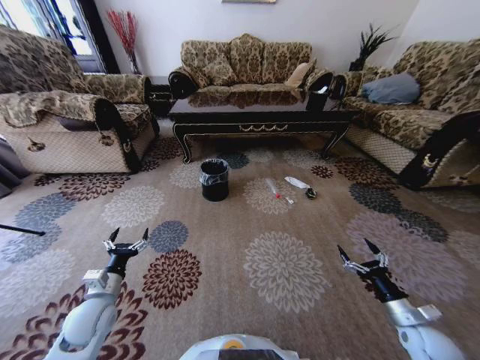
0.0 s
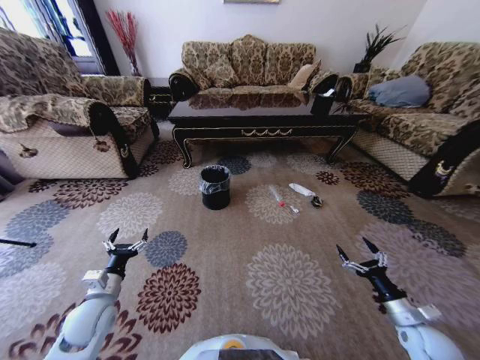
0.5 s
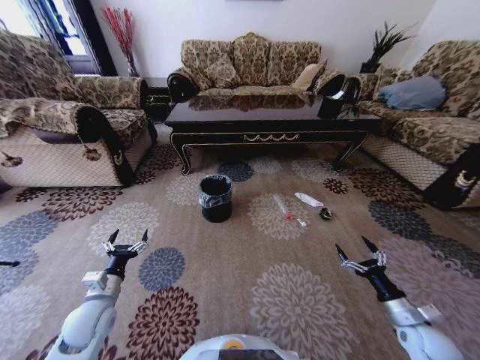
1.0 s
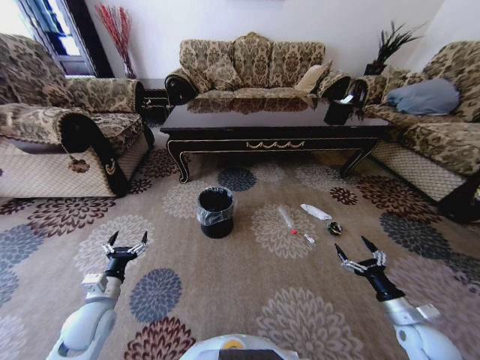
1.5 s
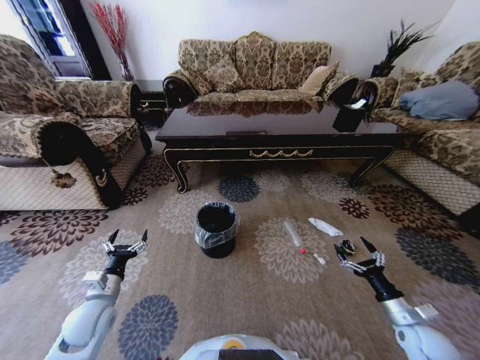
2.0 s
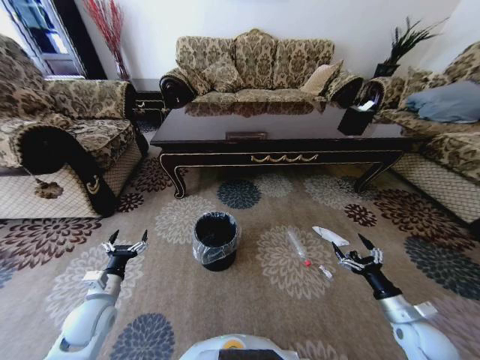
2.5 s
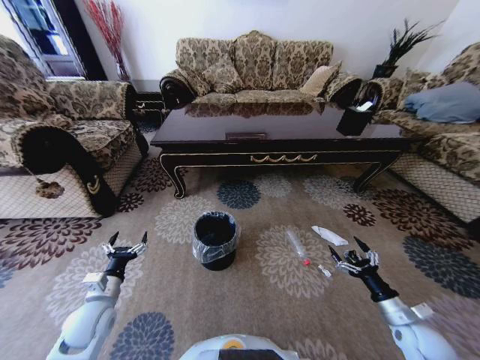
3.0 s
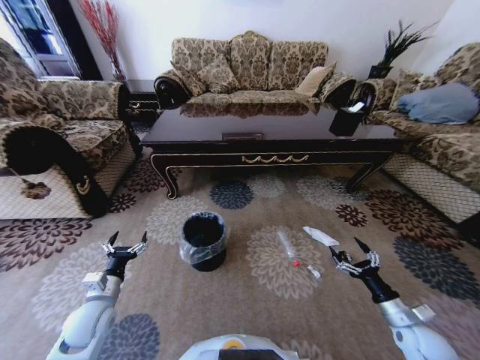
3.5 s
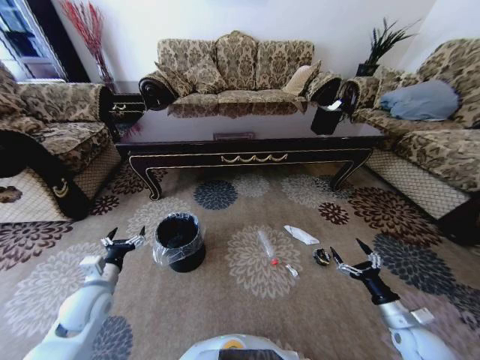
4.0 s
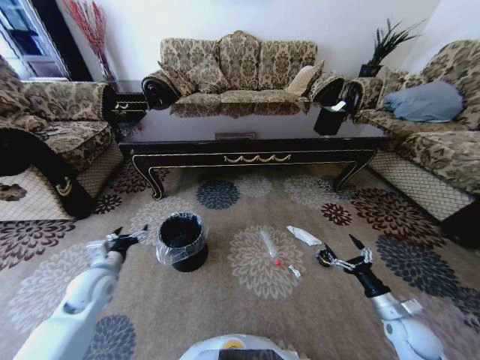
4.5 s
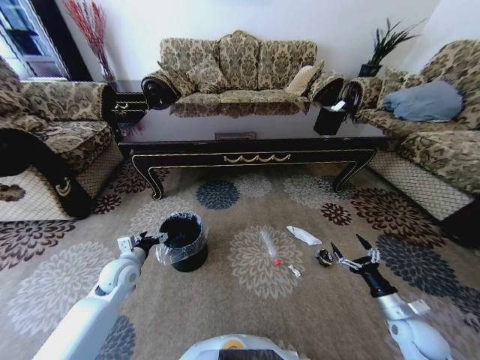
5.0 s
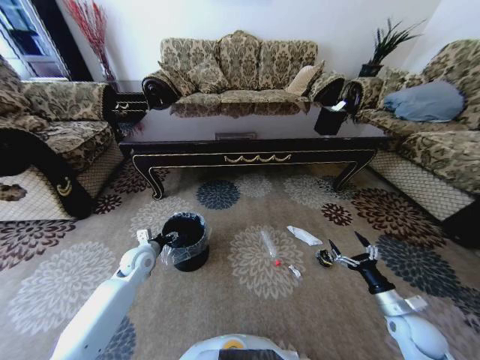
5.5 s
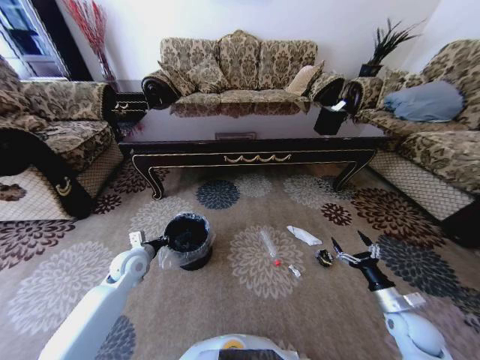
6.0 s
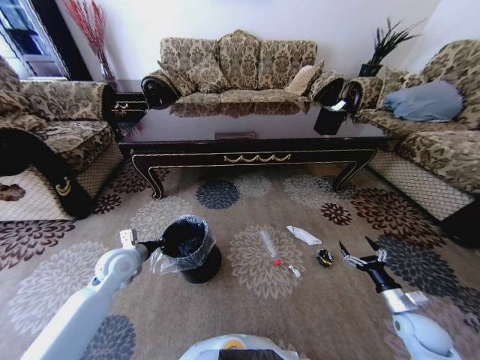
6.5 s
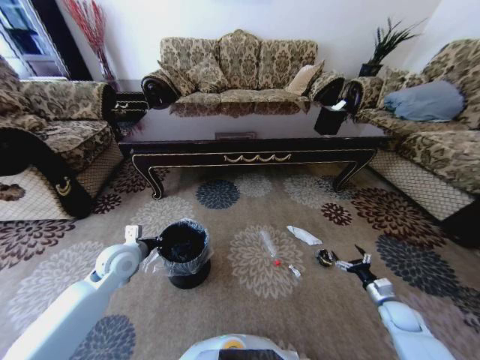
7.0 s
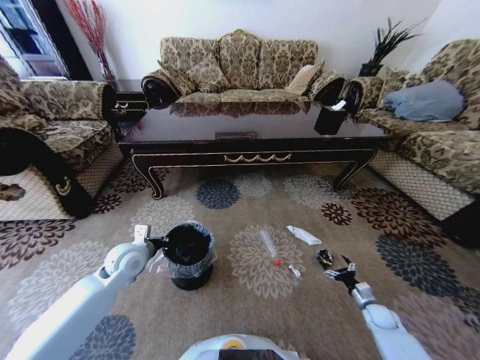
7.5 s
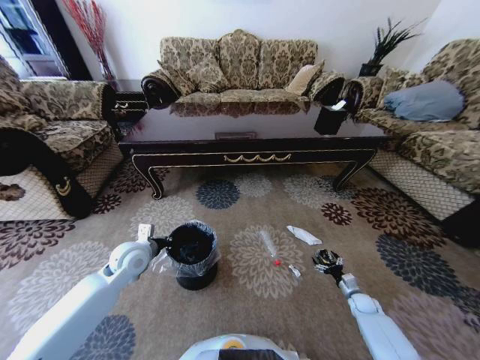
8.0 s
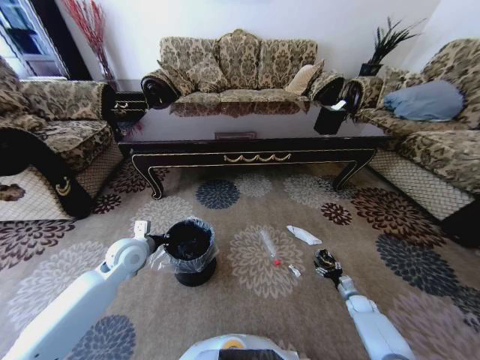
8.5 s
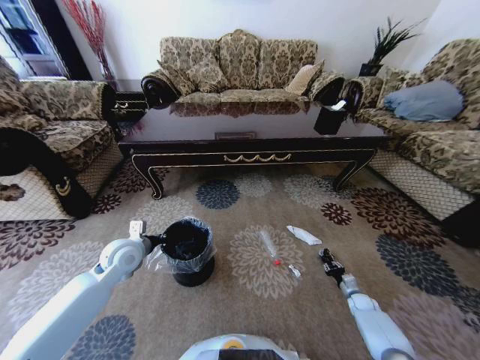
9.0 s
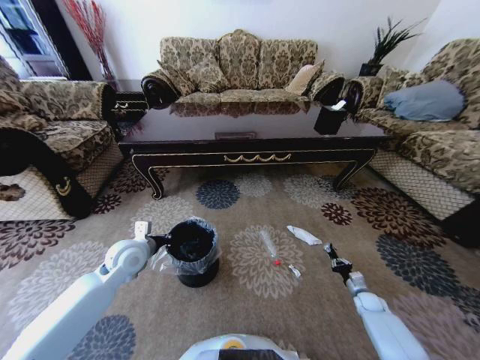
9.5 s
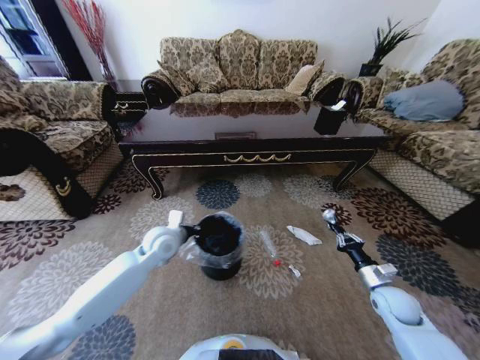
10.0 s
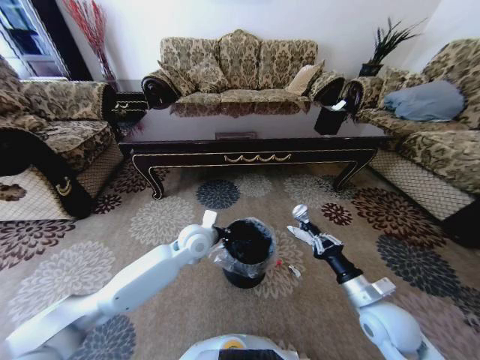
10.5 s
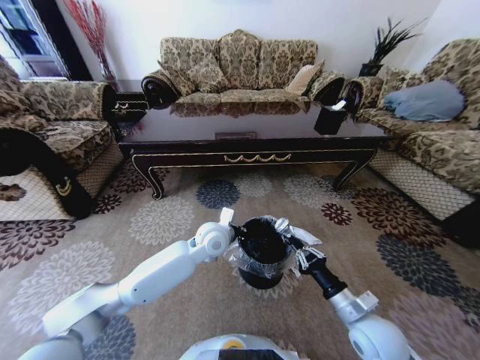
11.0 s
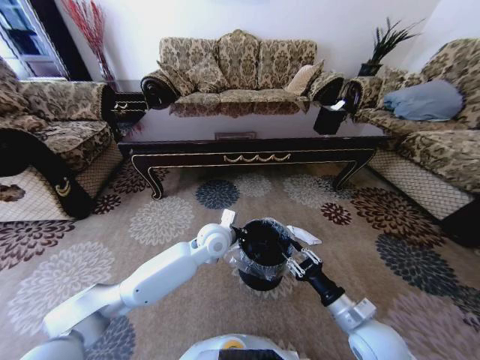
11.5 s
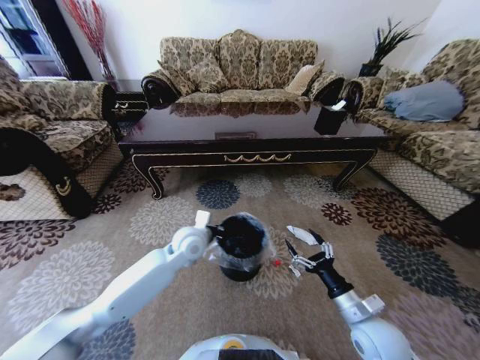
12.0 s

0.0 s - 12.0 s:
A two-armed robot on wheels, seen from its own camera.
Task of the whole recording: Move to the front of the table and pick up the trash from the floor, then place it into the trash bin.
4.0 s - 6.0 s: The left gripper goes approximately 10 cm forward, and closes its fingers.
6.0 s - 8.0 s: The left gripper heads upward, covering roughly 5 cm. The right gripper shifts some 20 cm downward and forward.
8.0 s - 10.0 s: The right gripper shifts some 20 cm upward, and closes its fingers; the left gripper travels to the right by roughly 10 cm.
10.0 s - 12.0 s: The right gripper travels to the left and backward by roughly 15 cm, and opens its fingers. Meanwhile the left gripper is displaced to the right by roughly 10 cm.

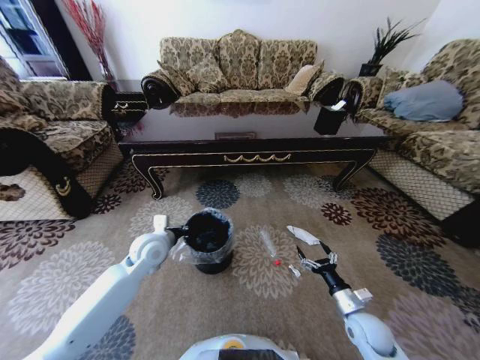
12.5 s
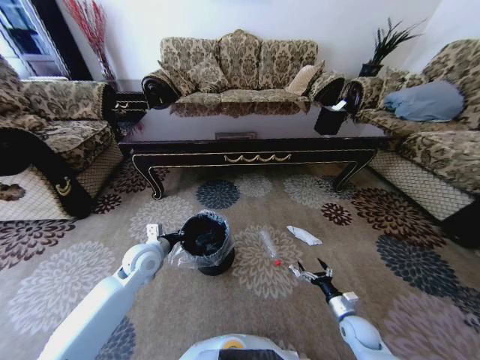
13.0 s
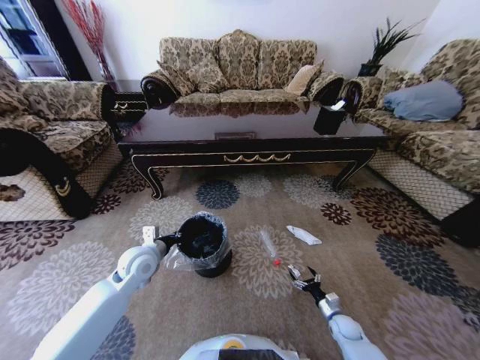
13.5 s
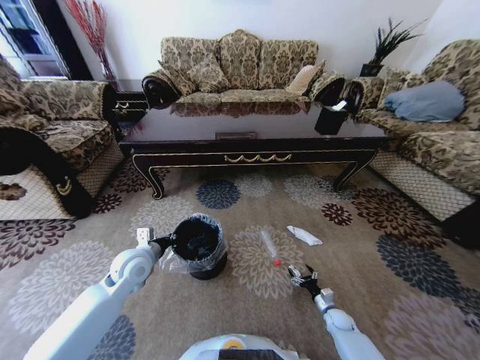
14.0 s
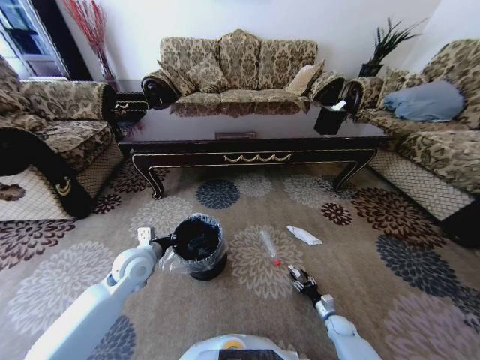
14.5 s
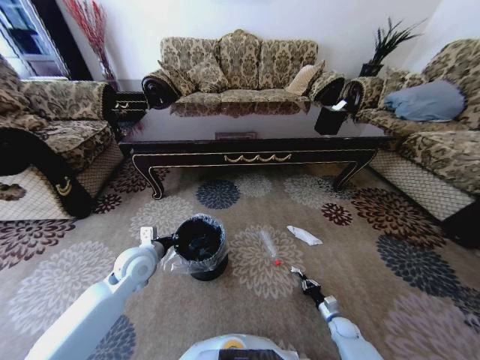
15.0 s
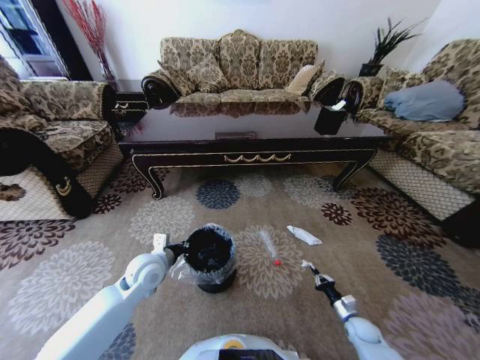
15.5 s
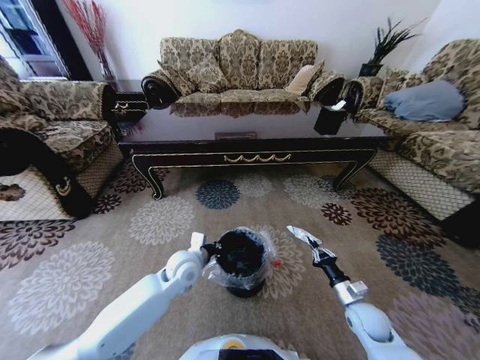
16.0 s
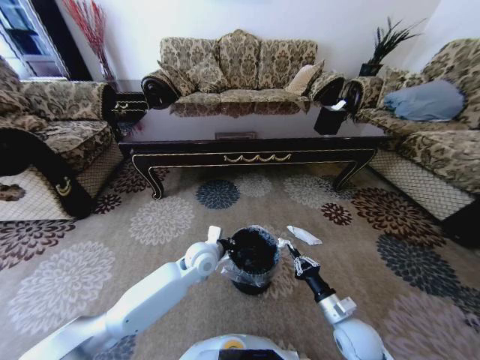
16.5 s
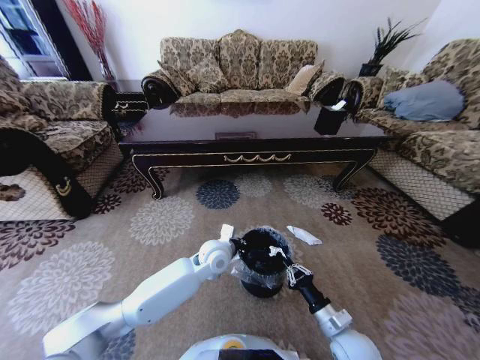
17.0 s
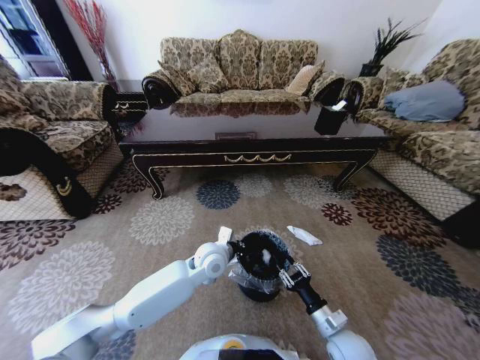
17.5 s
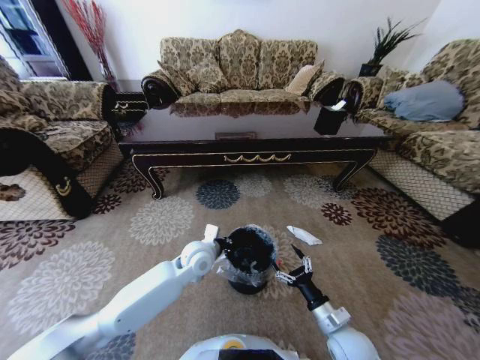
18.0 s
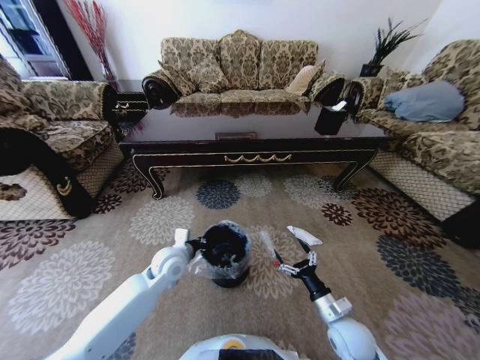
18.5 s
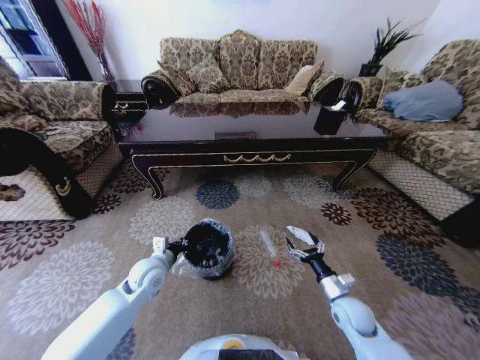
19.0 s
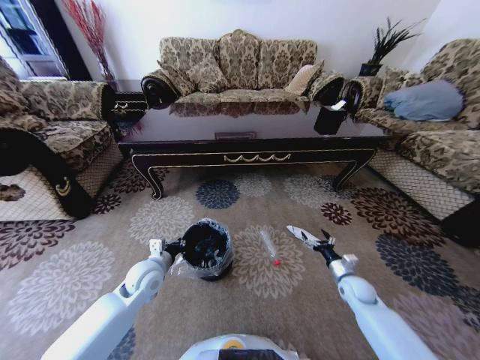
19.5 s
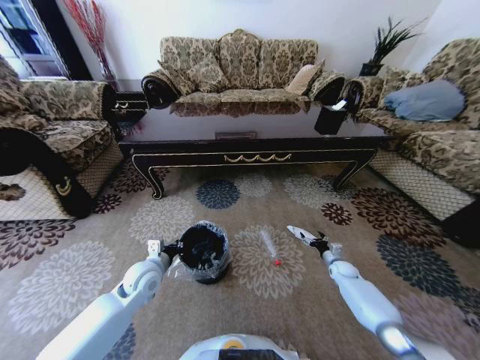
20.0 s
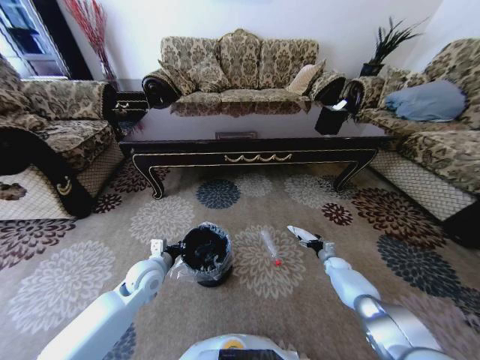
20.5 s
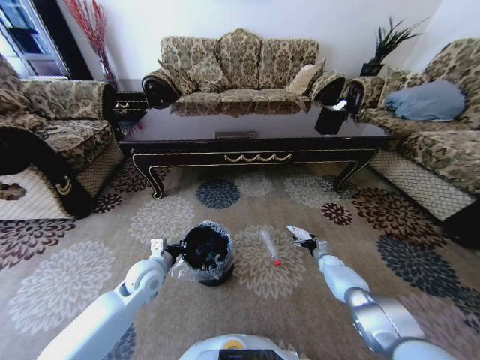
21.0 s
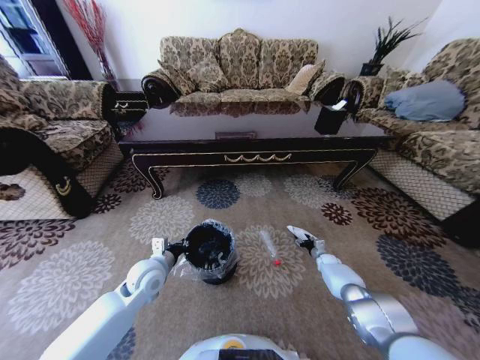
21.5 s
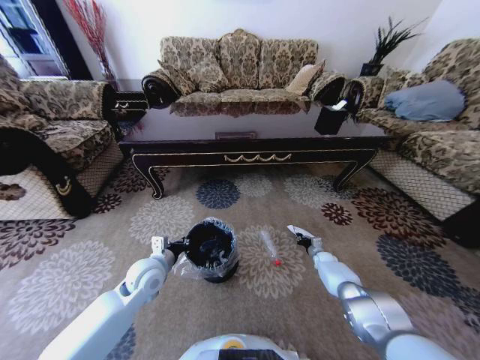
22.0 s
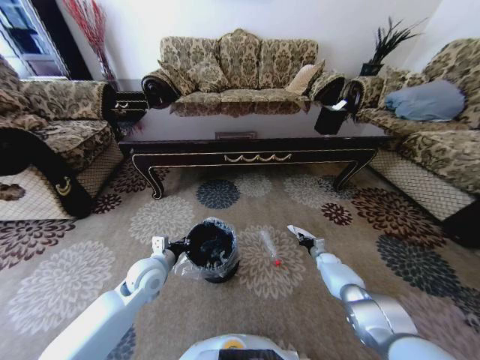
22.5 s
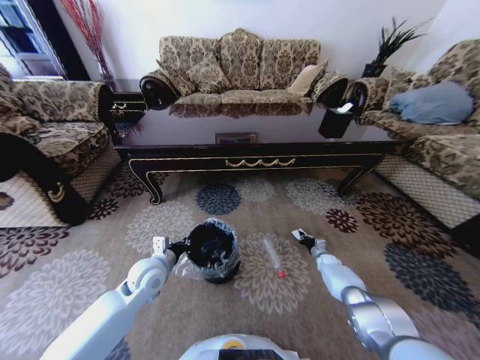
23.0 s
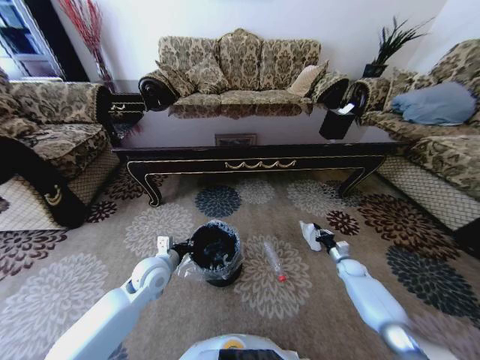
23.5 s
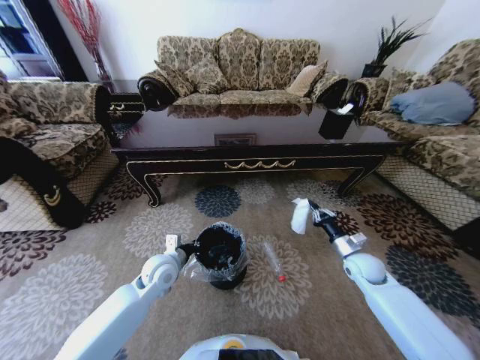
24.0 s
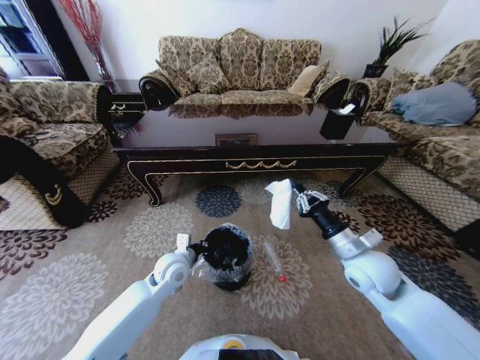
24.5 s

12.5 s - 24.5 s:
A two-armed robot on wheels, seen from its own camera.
Task of the whole recording: Move to the front of the table and pick up the trash from the floor, then place it into the trash bin.
12.5 s - 14.5 s: The right gripper shifts about 20 cm downward, and closes. Meanwhile the left gripper moves approximately 5 cm.
14.5 s - 16.5 s: The left gripper shifts some 20 cm to the right. The right gripper shifts roughly 25 cm upward and to the left, and closes up.
16.5 s - 18.5 s: The right gripper opens its fingers; the left gripper shifts some 10 cm to the left.
18.5 s - 20.5 s: The right gripper goes about 35 cm forward, to the right and downward. Meanwhile the left gripper travels to the left by some 5 cm.
20.5 s - 22.5 s: The right gripper closes its fingers.
22.5 s - 24.5 s: The left gripper goes about 5 cm to the right. The right gripper shifts approximately 40 cm upward, backward and to the left.

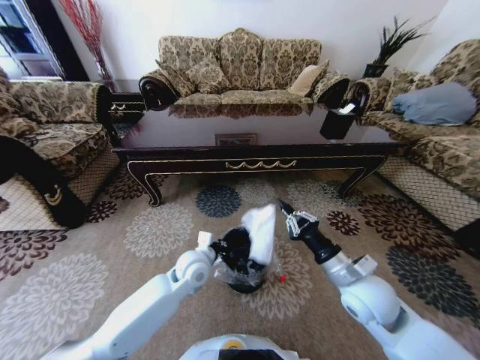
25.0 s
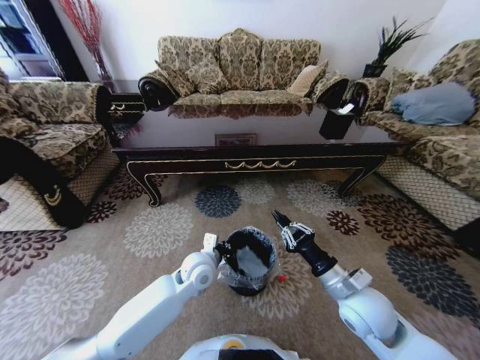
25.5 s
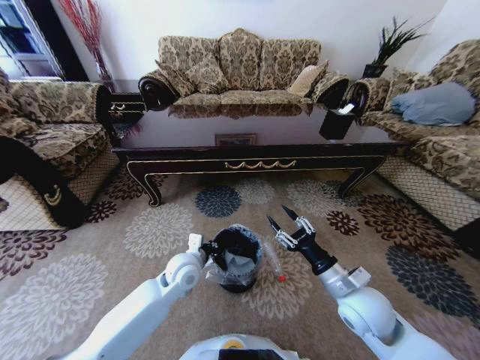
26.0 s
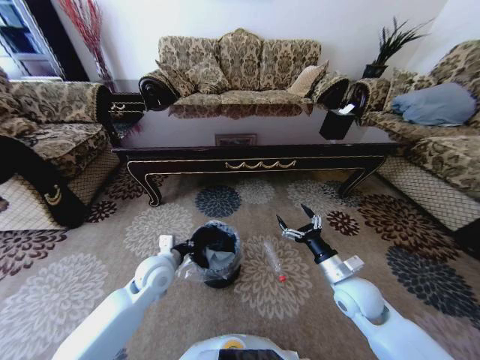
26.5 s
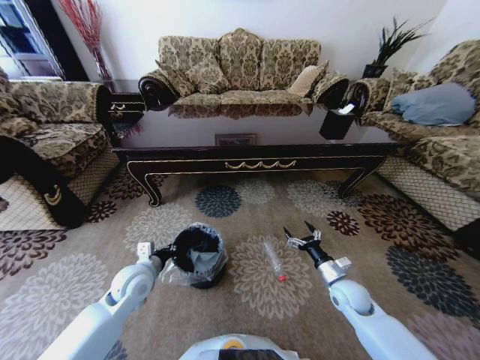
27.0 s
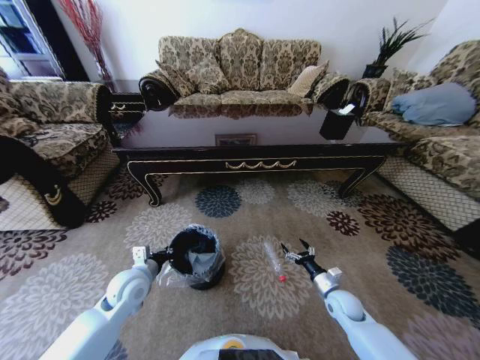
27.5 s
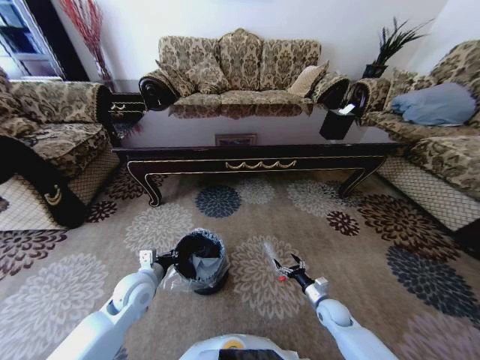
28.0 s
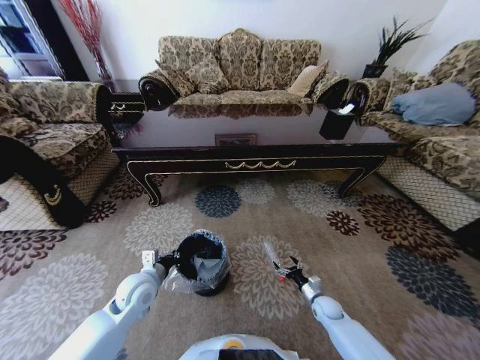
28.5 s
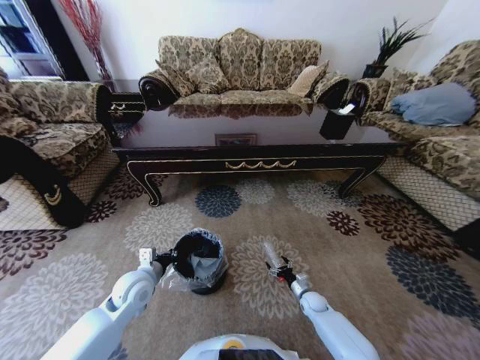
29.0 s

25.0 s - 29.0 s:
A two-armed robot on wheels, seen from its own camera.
Task of the whole recording: Move to the front of the table and pick up the trash from the floor, then place it into the trash bin.
25.0 s - 27.0 s: The left gripper travels to the left by some 15 cm. Meanwhile the right gripper heads downward and to the right, covering roughly 15 cm, and opens.
27.0 s - 29.0 s: The right gripper moves downward, about 20 cm.
